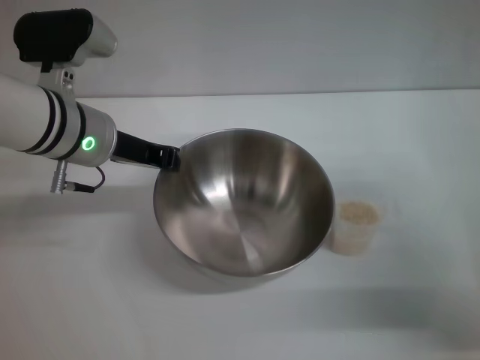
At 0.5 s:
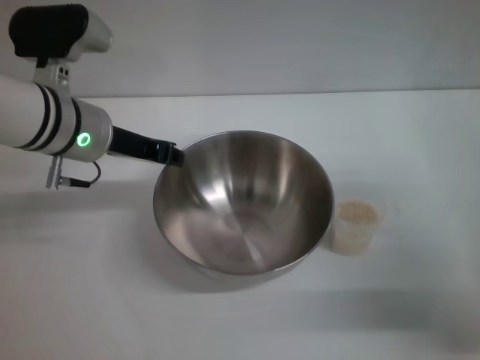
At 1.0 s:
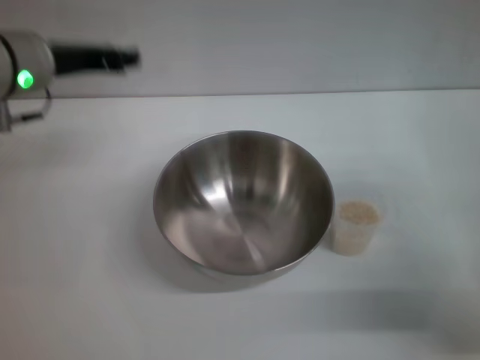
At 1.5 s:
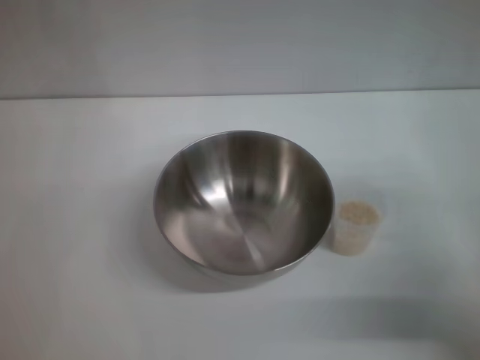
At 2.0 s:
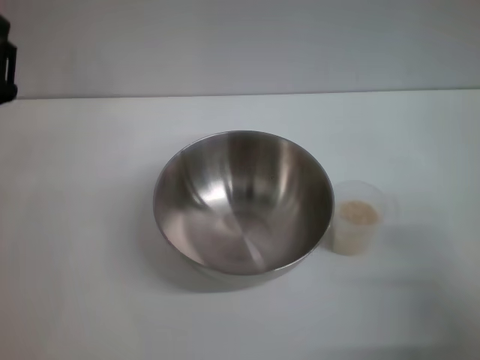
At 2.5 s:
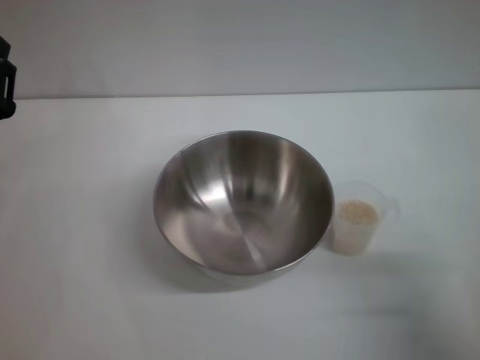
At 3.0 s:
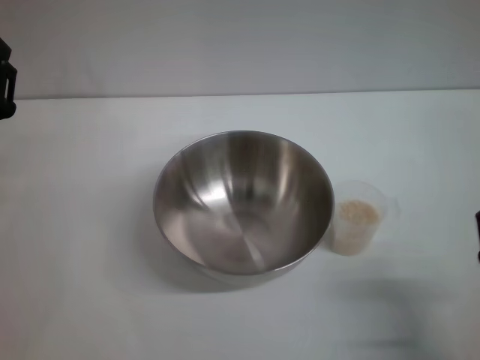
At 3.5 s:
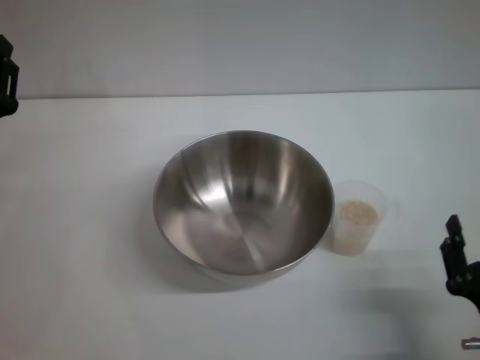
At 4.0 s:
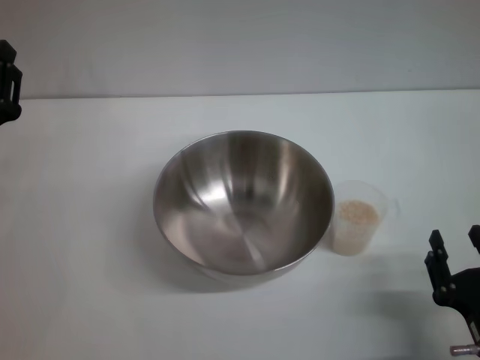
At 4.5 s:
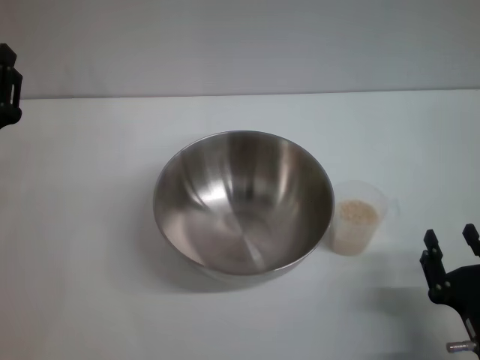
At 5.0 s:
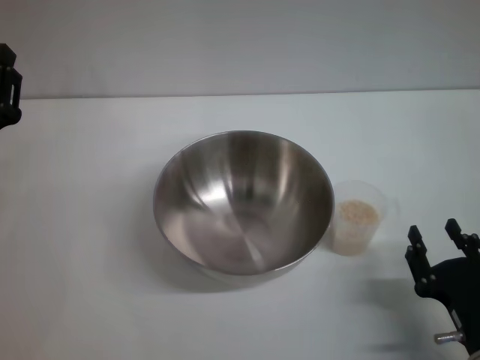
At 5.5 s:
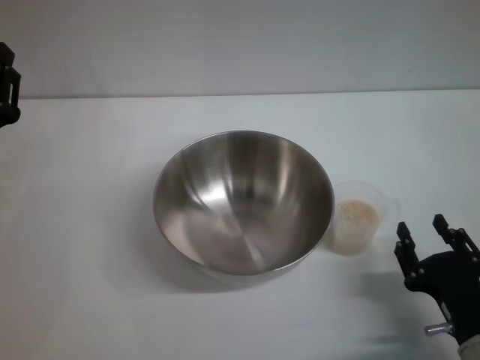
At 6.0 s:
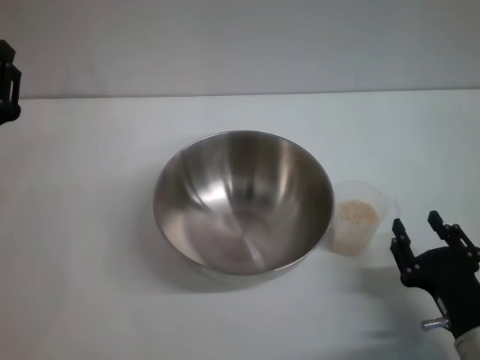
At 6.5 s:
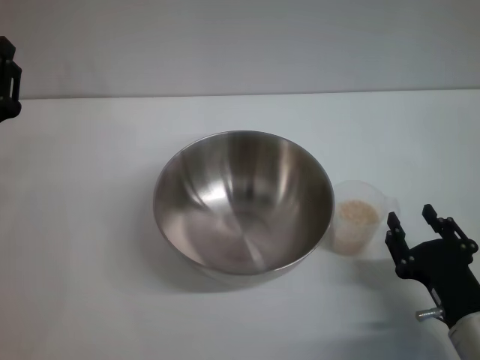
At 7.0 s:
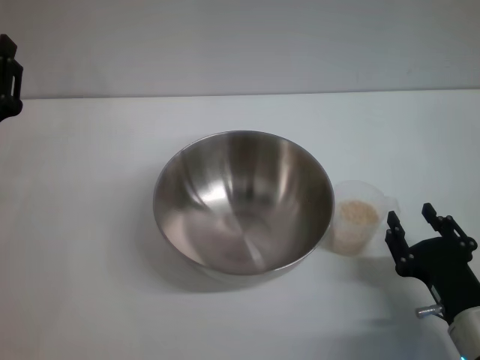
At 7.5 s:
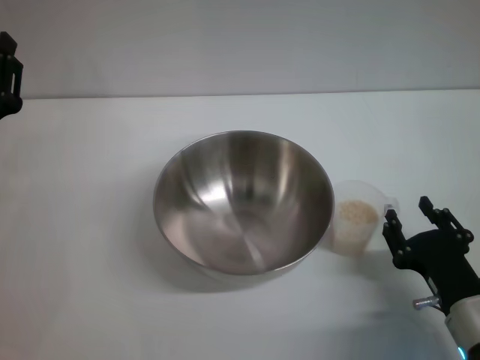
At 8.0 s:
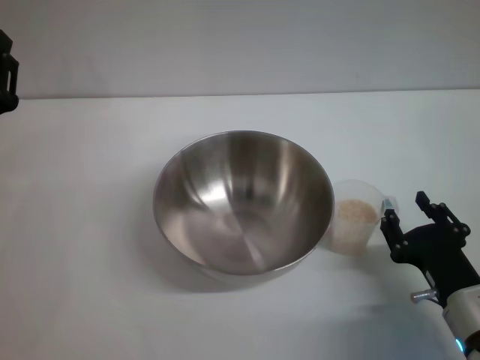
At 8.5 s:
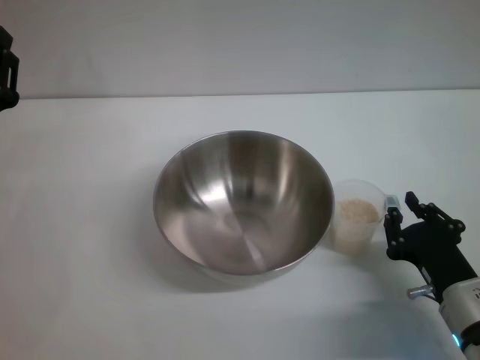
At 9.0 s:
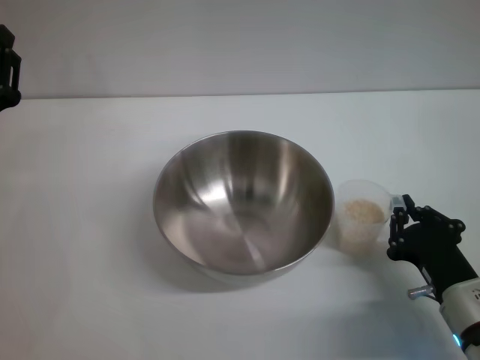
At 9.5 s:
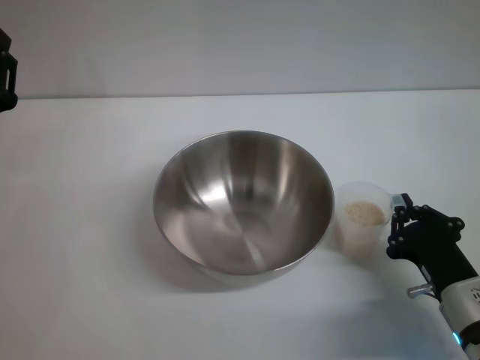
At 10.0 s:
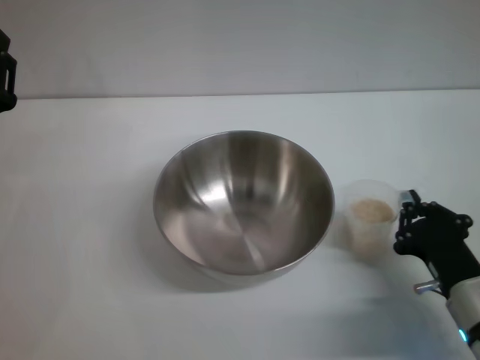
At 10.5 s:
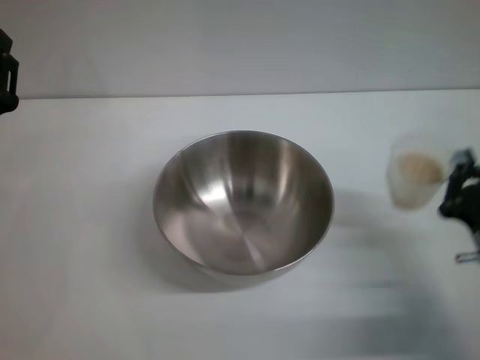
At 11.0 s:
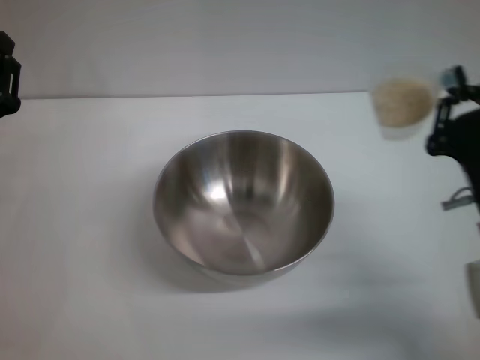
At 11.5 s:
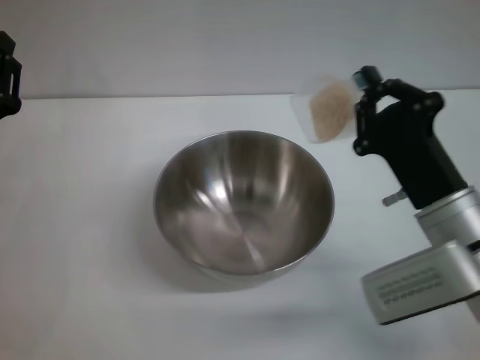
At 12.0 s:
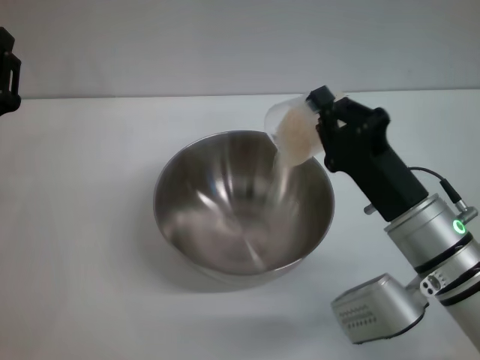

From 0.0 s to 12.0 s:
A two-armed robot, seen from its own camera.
Task of the whole recording: Place the bowl in the middle of the table with one hand and pour the rice from the grain cup into it with the other hand.
Step, from 1.0 s to 10.0 s: Pick up the cup with rice in it with the right gripper.
From 0.0 s to 2.0 s: The right gripper travels backward by some 5 cm. Meanwhile the left gripper shifts approximately 15 cm backward, to the left and downward, and opens.
From 2.0 s to 4.0 s: The right gripper travels backward, to the left and downward by about 10 cm.
From 4.0 s to 6.0 s: The grippers stay close to where they were, moving slightly.
From 6.0 s to 8.0 s: The grippers stay close to where they were, moving slightly.
From 8.0 s to 10.0 s: The right gripper closes.
From 10.0 s to 12.0 s: The right gripper shifts some 10 cm upward, to the left and forward.

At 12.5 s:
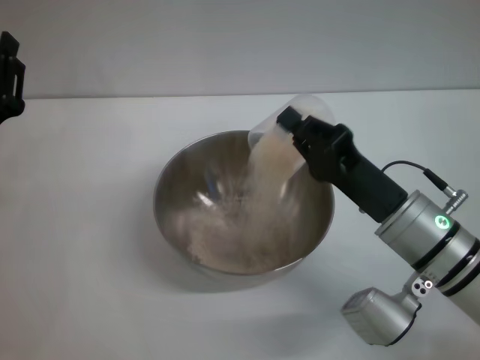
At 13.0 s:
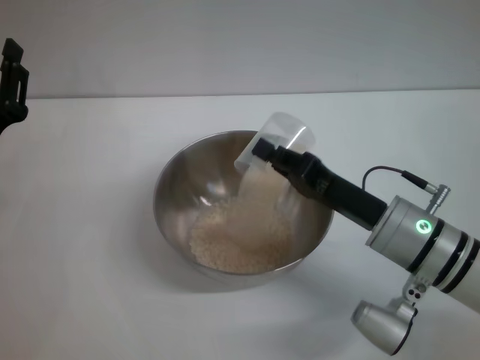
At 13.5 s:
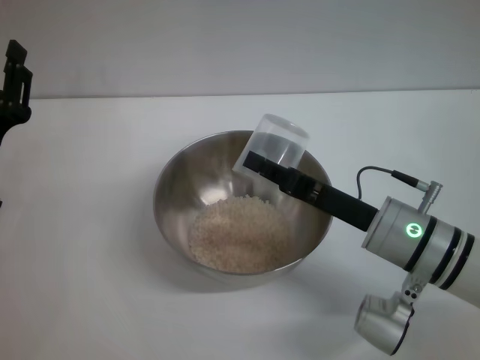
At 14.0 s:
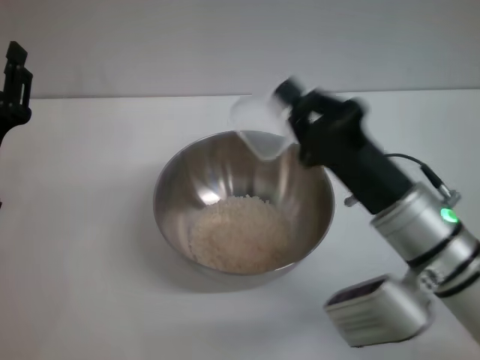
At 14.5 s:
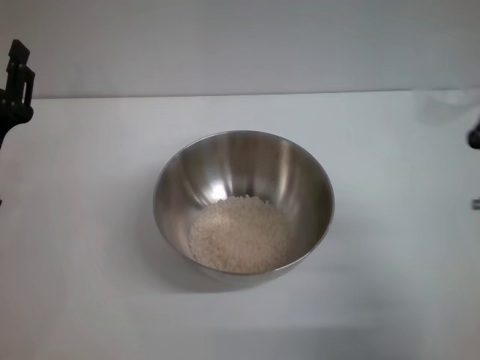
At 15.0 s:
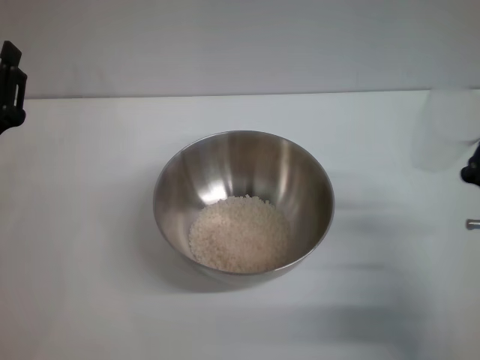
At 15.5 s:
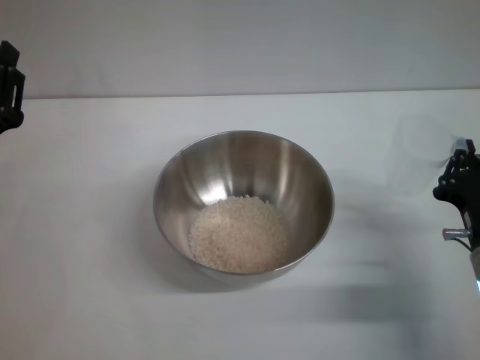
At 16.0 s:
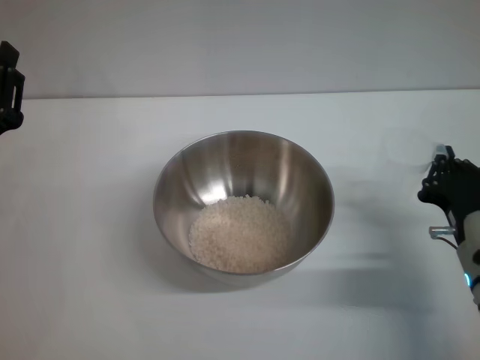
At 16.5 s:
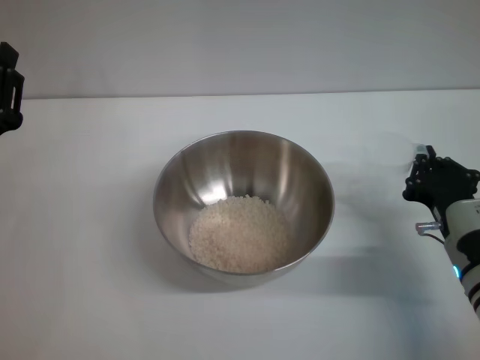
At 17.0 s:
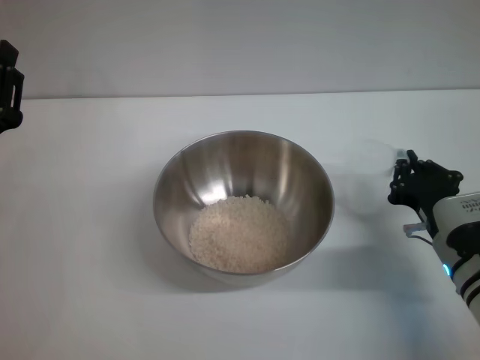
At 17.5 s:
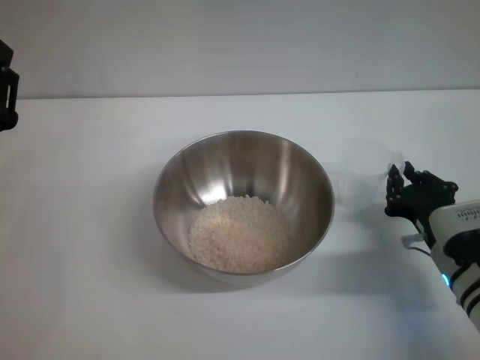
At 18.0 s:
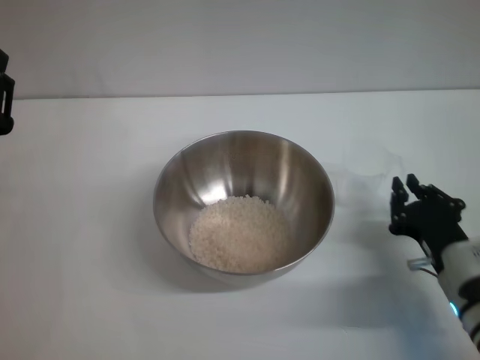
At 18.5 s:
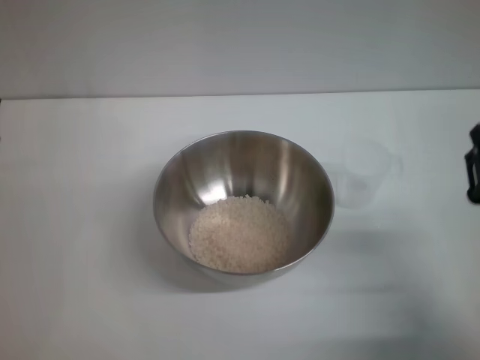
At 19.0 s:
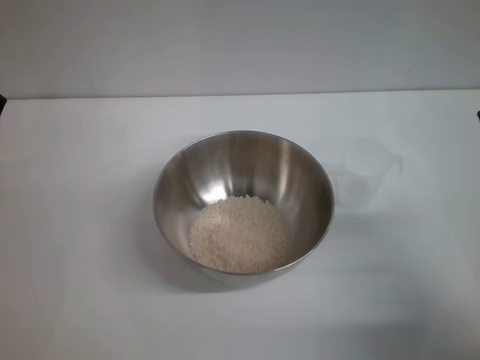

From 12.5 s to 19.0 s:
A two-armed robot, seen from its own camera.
Task of the whole recording: Place the bowl in the middle of the table with one hand and pour the rice from the grain cup into it with the other hand.
Step, from 13.5 s to 18.0 s: Place the cup on the table with the right gripper.
From 12.5 s to 14.5 s: The right gripper goes about 10 cm backward and to the right.
From 14.5 s to 17.0 s: The right gripper heads downward and forward, covering approximately 10 cm.
From 17.0 s to 19.0 s: The right gripper is displaced backward and upward by roughly 5 cm, and opens.
